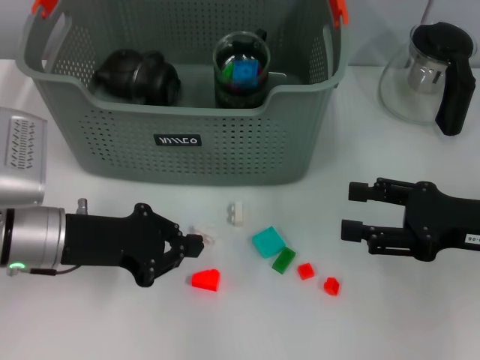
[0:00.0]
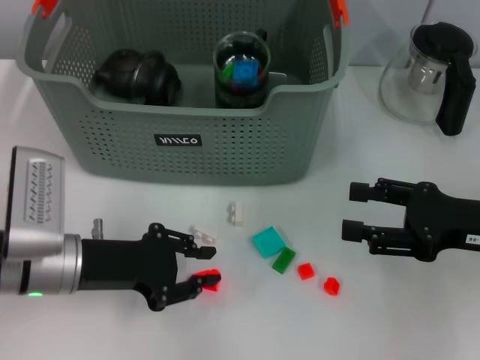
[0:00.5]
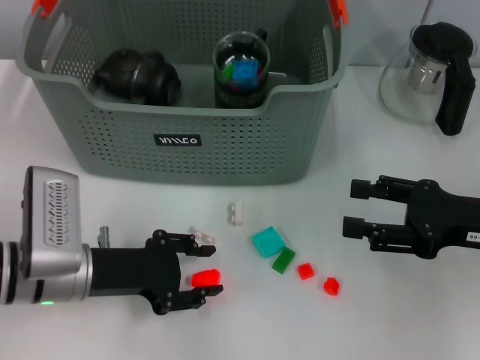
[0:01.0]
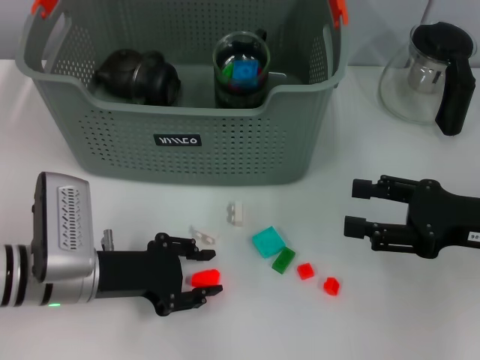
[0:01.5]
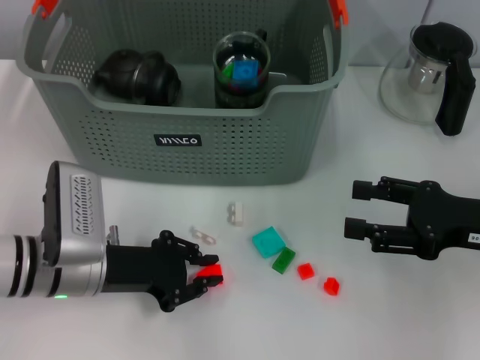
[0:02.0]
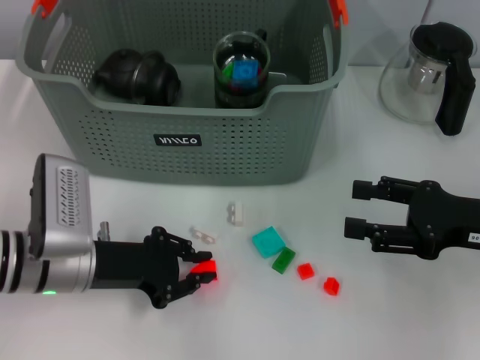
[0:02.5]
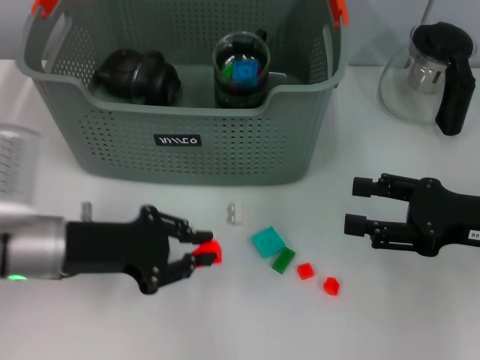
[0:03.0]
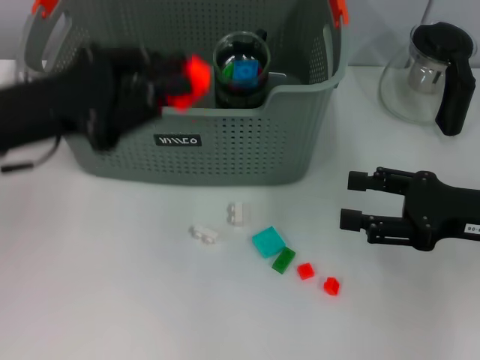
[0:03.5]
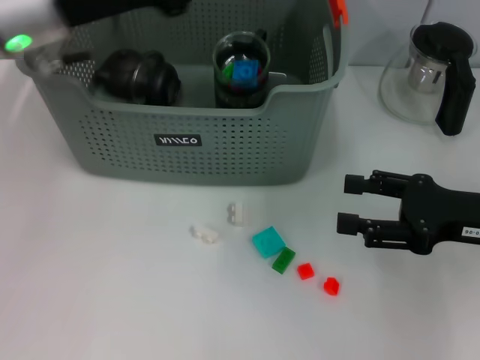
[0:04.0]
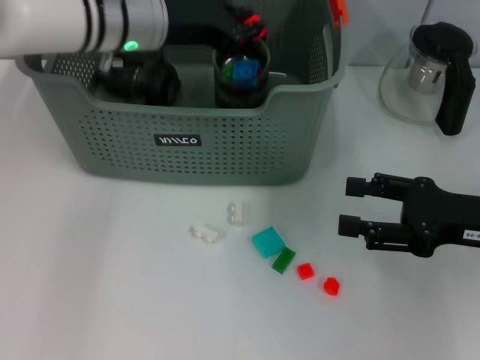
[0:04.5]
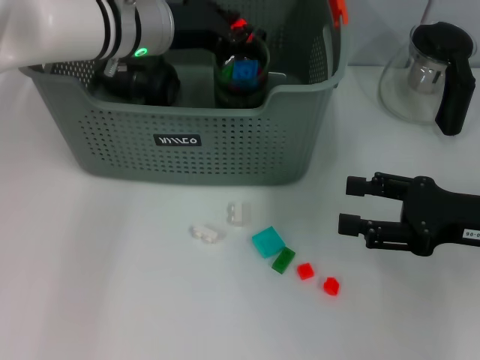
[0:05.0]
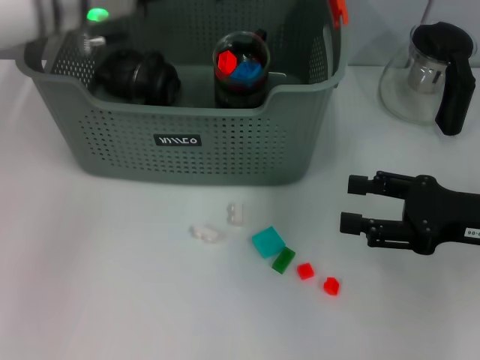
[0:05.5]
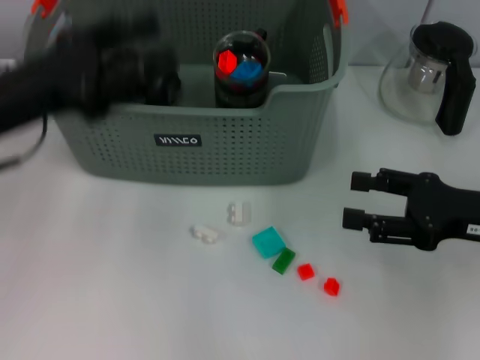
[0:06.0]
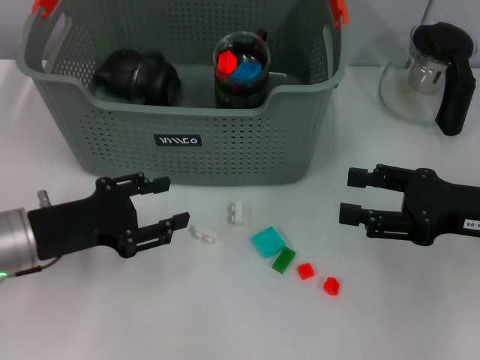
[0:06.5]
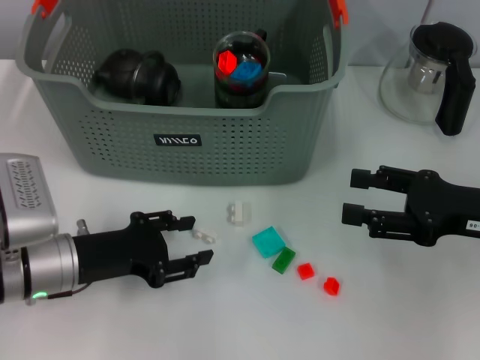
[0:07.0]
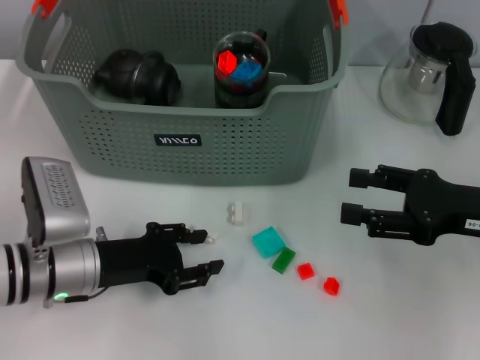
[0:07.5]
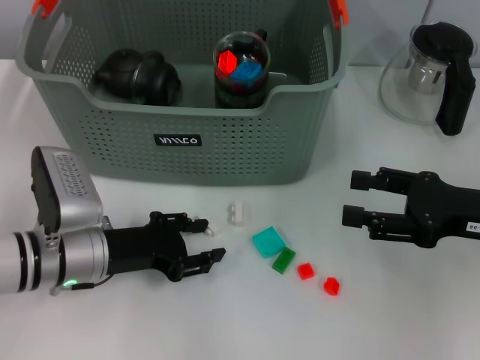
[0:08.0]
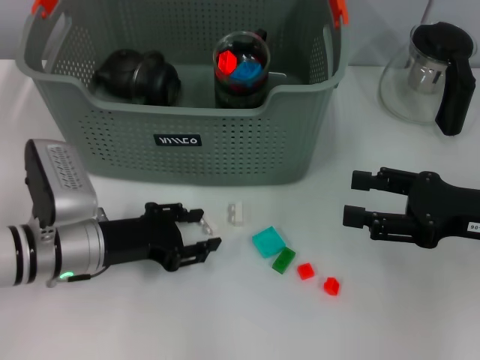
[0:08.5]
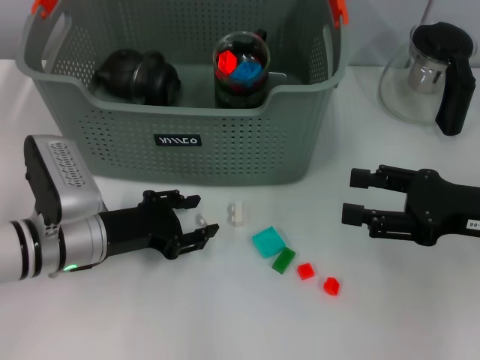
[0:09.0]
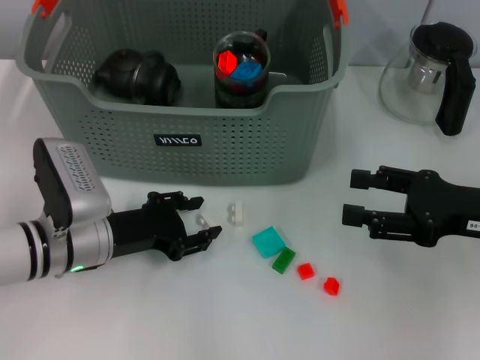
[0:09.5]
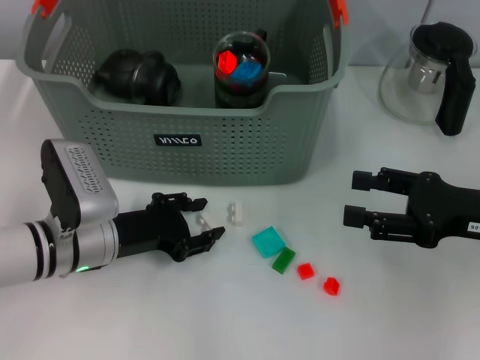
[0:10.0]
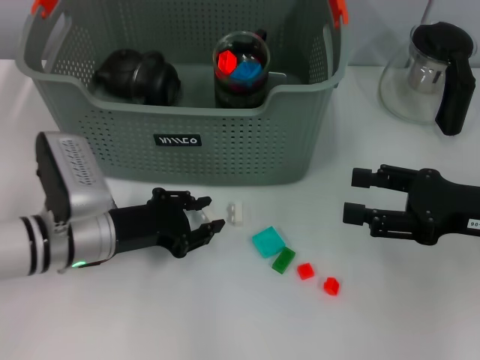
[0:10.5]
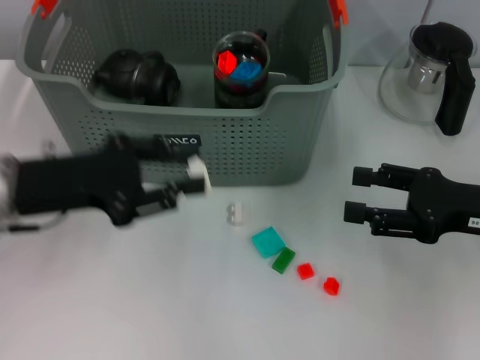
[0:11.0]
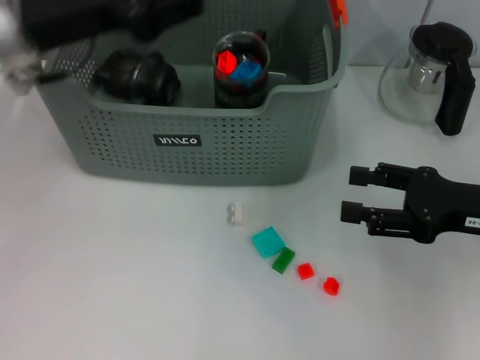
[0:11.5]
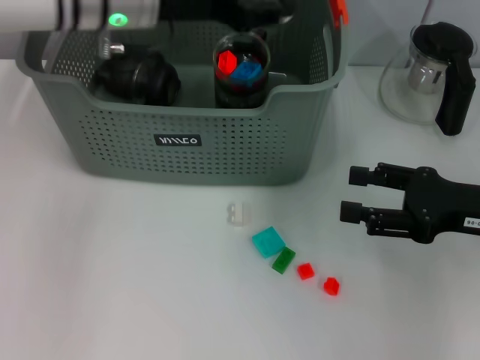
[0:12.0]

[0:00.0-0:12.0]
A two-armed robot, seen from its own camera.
Task of the whole recording: pick up the teacup on the table and place it into the storage bin, pick up the block on the table and place it into the storage bin.
Step, 0.0 to 1.5 s: Grasp the orange block with left gripper.
Step, 2.0 to 5.0 s: Place the orange block in the storage box with left gripper.
Step, 5.5 to 10.0 s: Grasp the white block with left gripper.
0.0 to 2.0 s: The left gripper is displaced downward by approximately 5 cm, and opens and closes again.
2.0 to 4.0 s: The left gripper heads upward and forward, covering approximately 20 cm.
4.0 to 6.0 s: The left gripper goes about 10 cm backward, to the left and downward, and opens its fingers.
6.0 to 8.0 s: The left gripper heads downward and to the right, covering about 15 cm.
8.0 to 10.0 s: The grippers move only a little.
10.0 to 12.0 s: The left gripper is displaced upward and forward by about 25 cm.

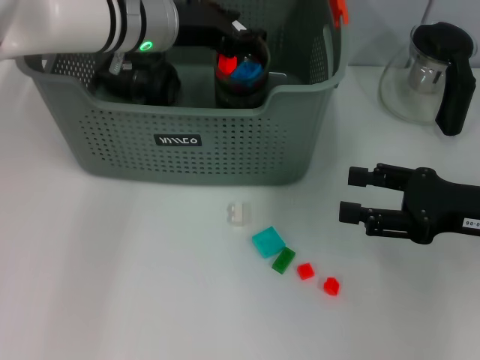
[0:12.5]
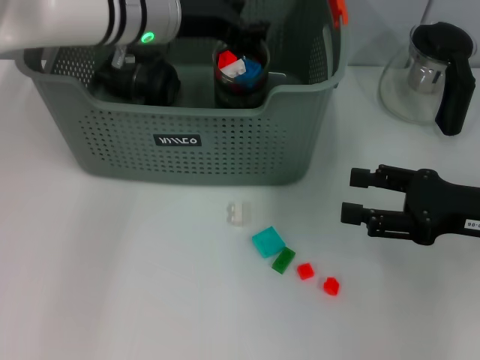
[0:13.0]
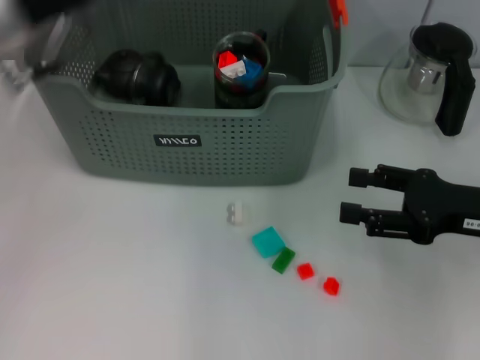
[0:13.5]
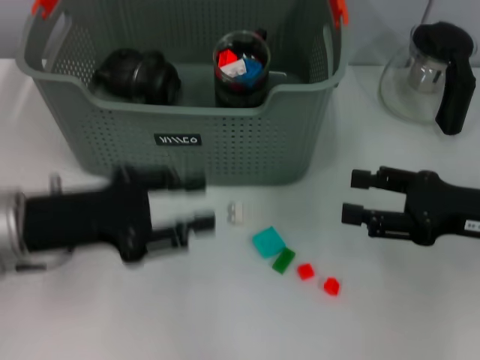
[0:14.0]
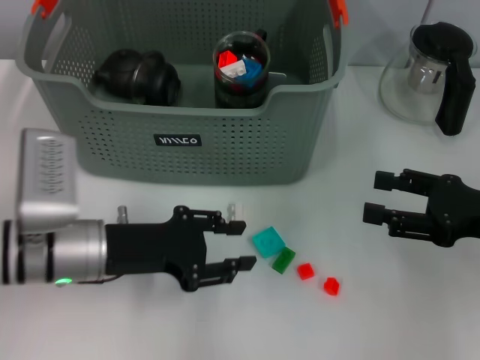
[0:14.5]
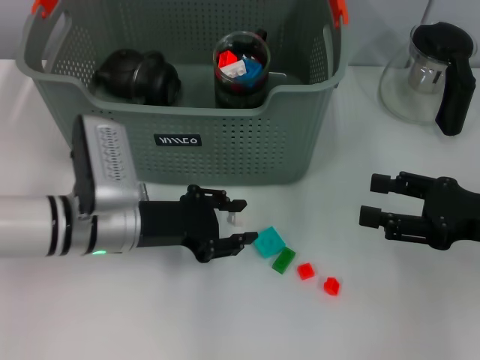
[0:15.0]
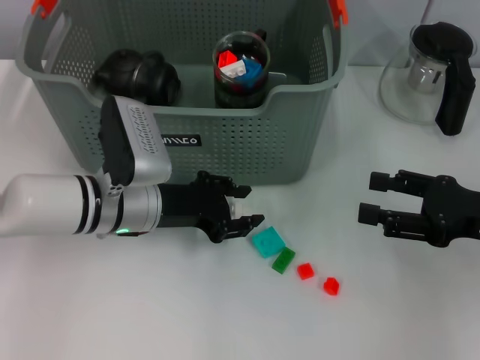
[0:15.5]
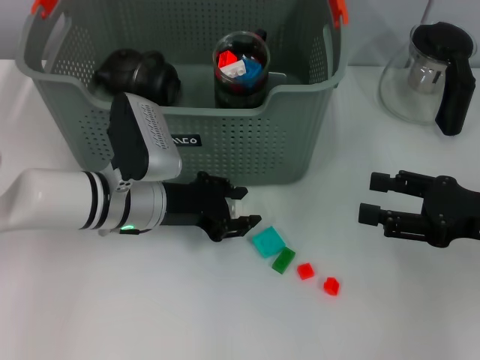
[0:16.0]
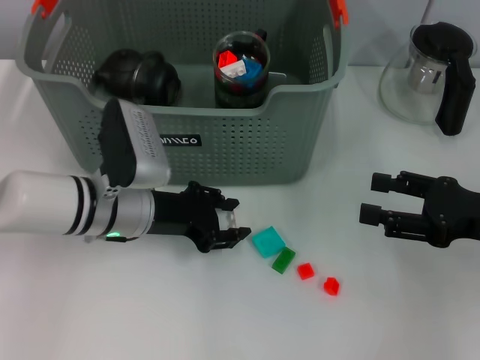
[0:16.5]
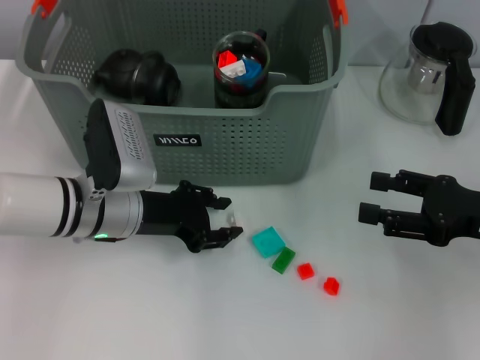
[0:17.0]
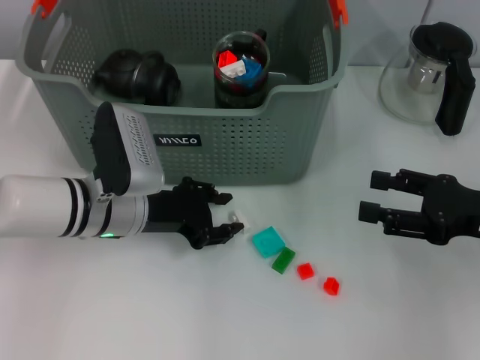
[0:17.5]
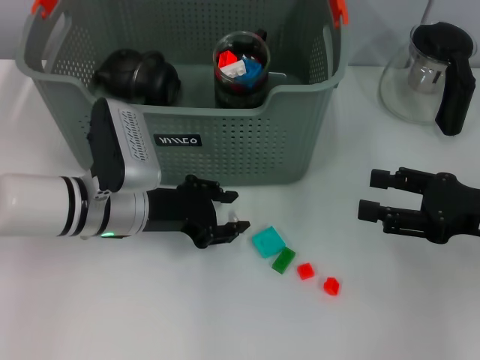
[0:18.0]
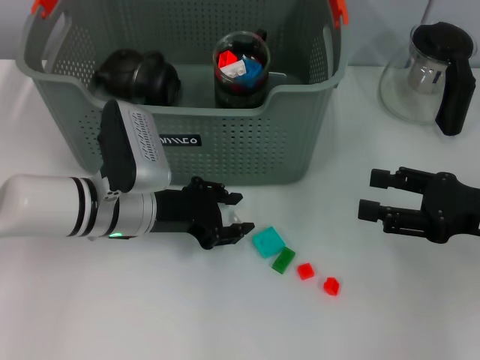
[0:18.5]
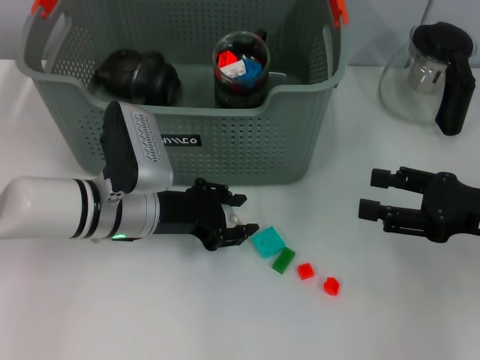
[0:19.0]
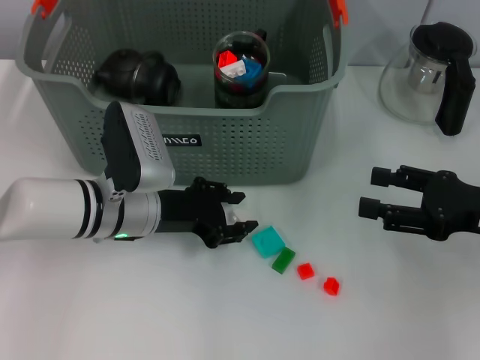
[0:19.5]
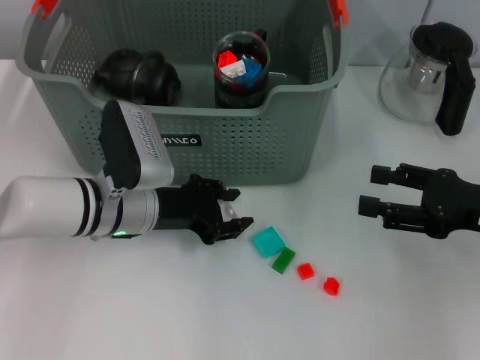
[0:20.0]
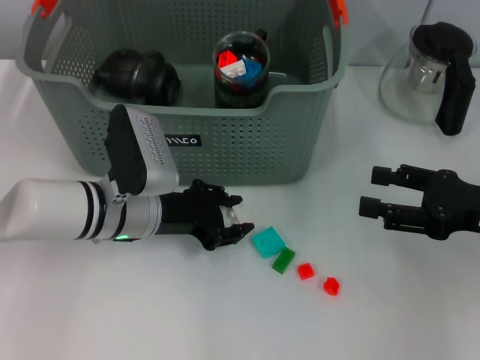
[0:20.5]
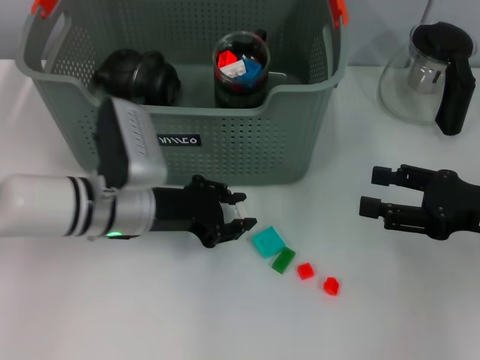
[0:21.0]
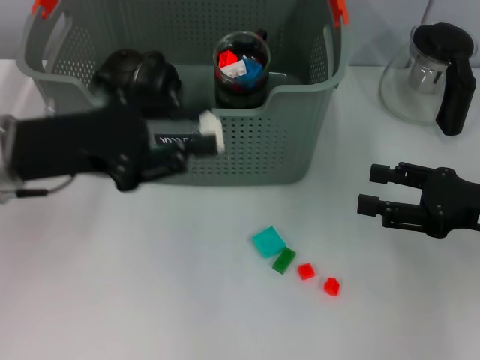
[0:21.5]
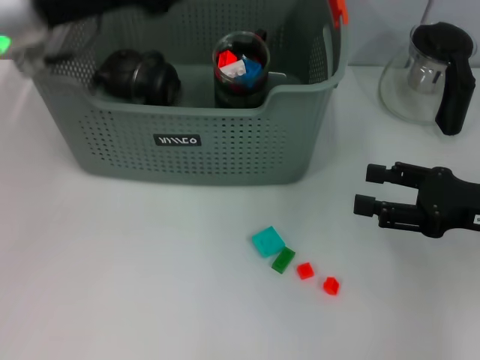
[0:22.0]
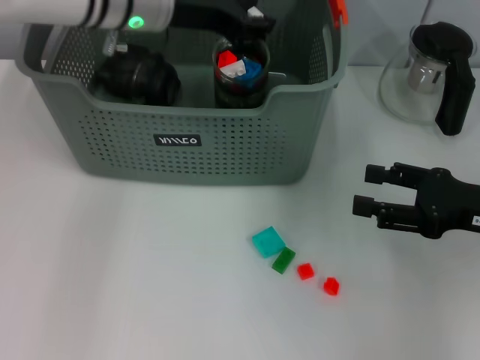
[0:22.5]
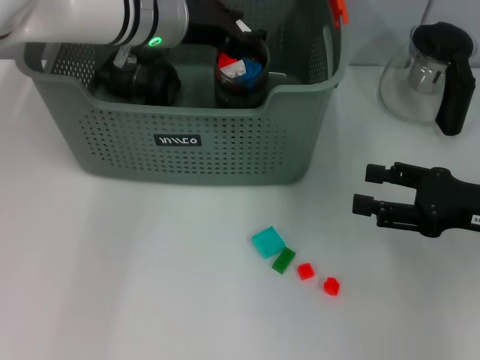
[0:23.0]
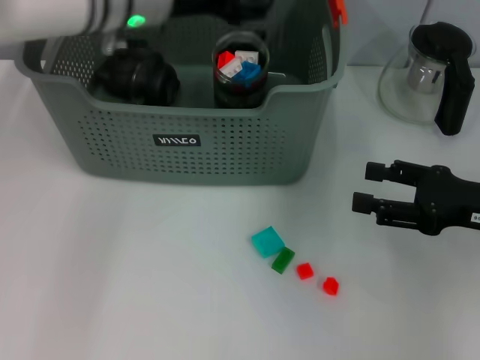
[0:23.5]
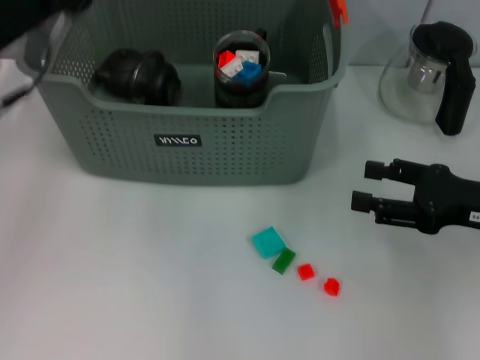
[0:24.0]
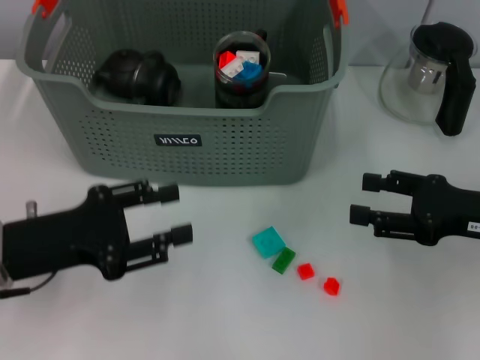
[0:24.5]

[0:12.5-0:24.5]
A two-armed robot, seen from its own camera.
Task of the whole recording: pick up the teacup on the table and place it into the storage bin, pick up the block on the table and place it into the storage bin.
Step, 13.0 to 20.5 s: Grasp the white block with left gripper.
Step, 21.0 to 23.0 s: Place the white block in the storage box with left gripper.
12.5 to 14.5 s: The left gripper travels backward and downward by some 20 cm.
14.5 to 16.5 s: The left gripper heads forward, covering about 5 cm.
16.5 to 18.5 s: There are only small adjustments of the grippers.
18.5 to 20.5 s: Neither gripper changes place.
20.5 to 22.5 s: The left gripper is displaced upward and forward by some 20 cm.
22.5 to 24.5 s: The left gripper is displaced backward, to the left and downward by about 25 cm.

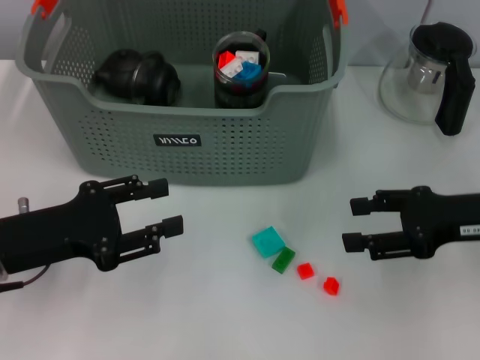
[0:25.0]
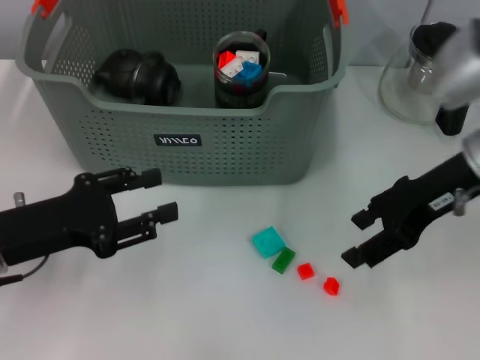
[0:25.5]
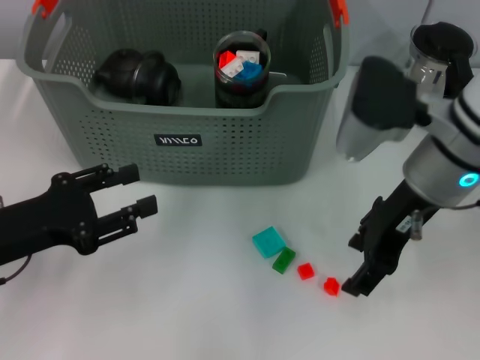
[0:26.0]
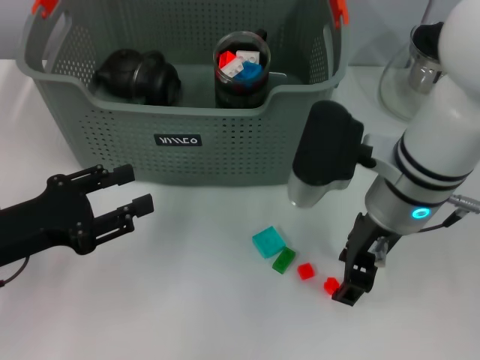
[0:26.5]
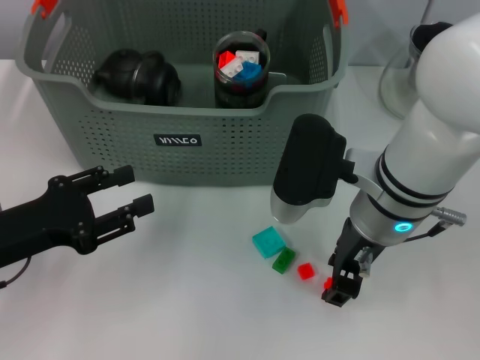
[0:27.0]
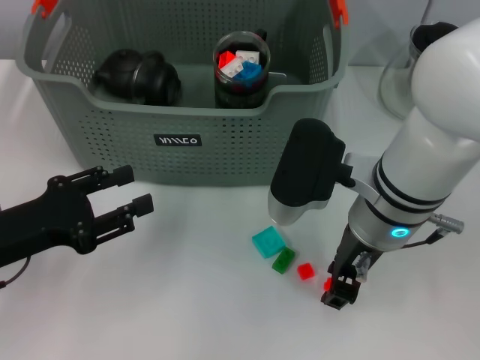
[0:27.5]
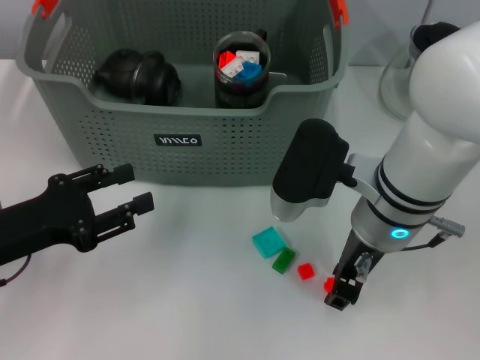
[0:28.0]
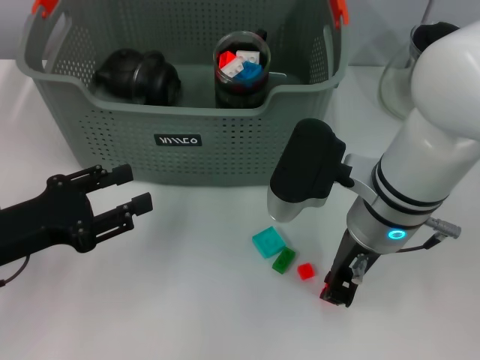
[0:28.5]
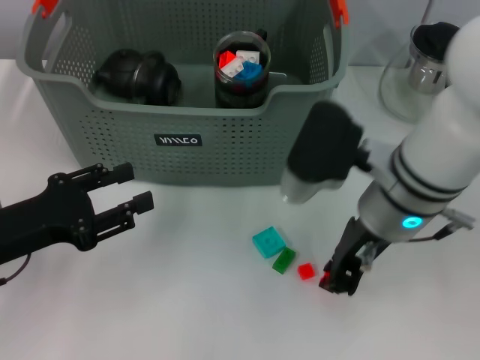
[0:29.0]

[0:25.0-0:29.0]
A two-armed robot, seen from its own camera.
Task of the whole recording: pick up the teacup on the table and place it into the storage bin, pick up the block on the table and place it into the storage bin.
Step, 25.0 to 28.0 s: Grasp the orange block with right gripper.
25.0 to 27.0 s: The right gripper moves to the left, some 20 cm.
27.0 to 29.0 s: The right gripper closes.
